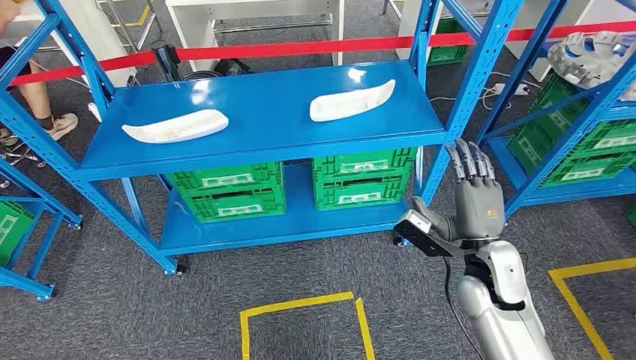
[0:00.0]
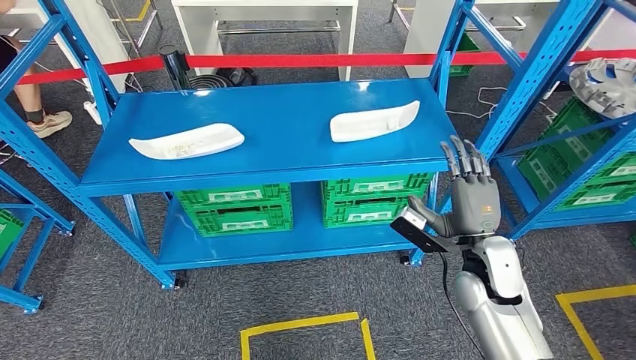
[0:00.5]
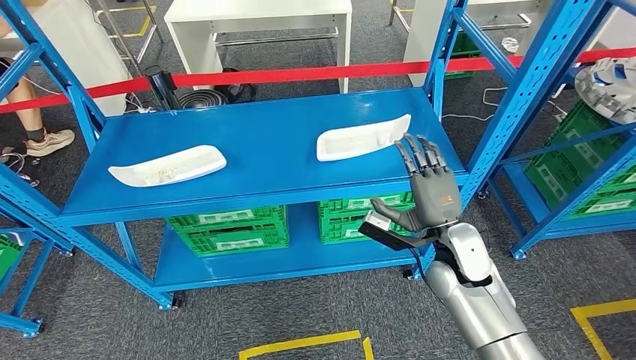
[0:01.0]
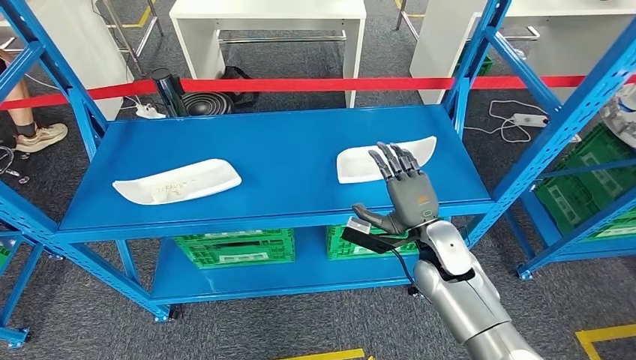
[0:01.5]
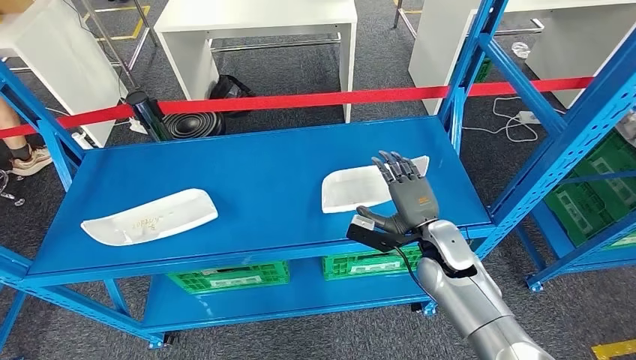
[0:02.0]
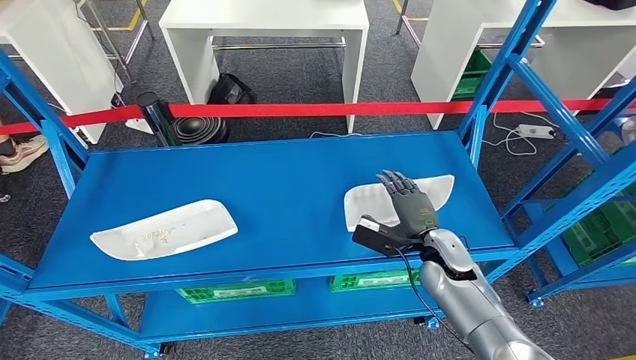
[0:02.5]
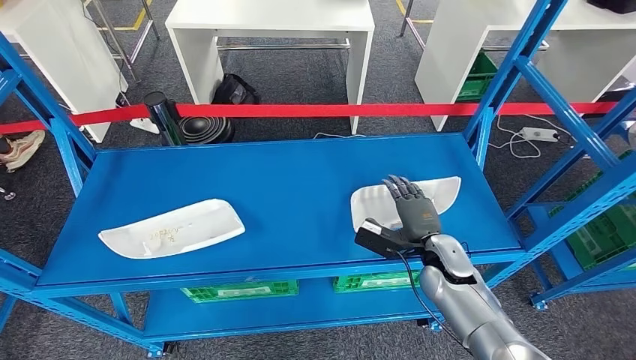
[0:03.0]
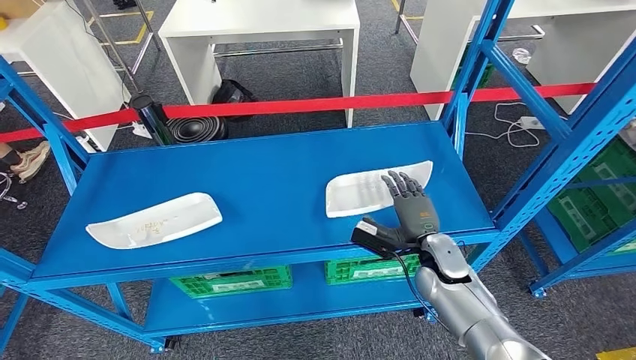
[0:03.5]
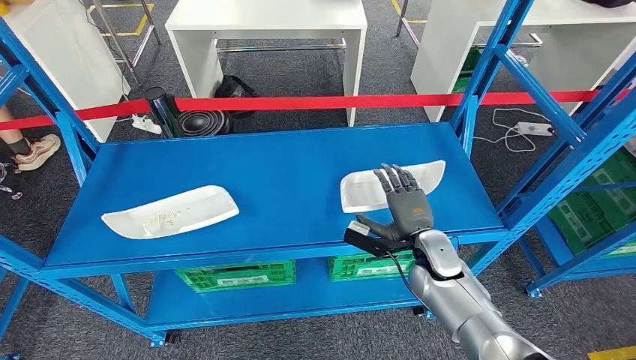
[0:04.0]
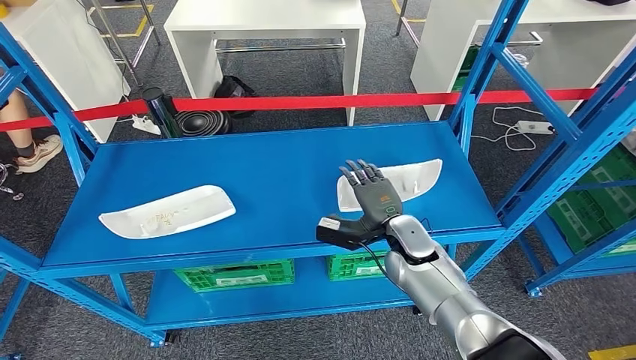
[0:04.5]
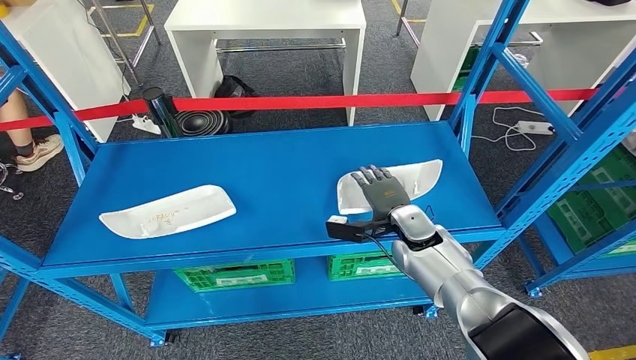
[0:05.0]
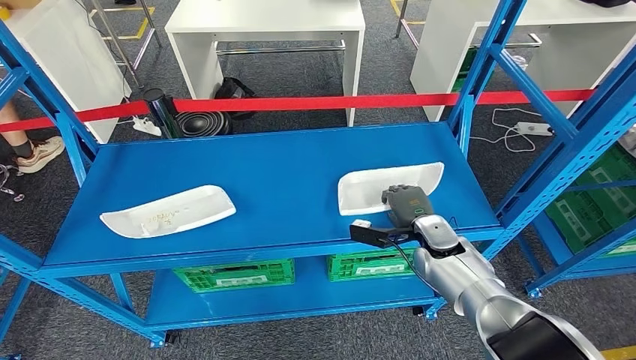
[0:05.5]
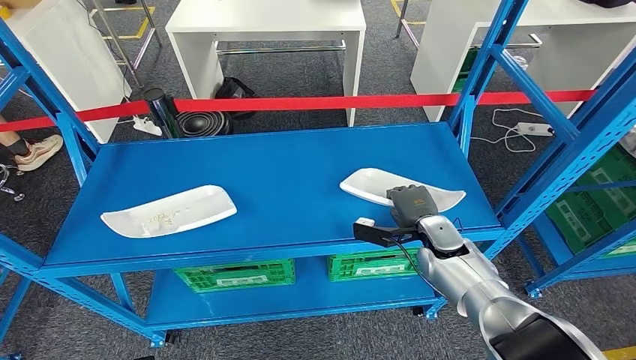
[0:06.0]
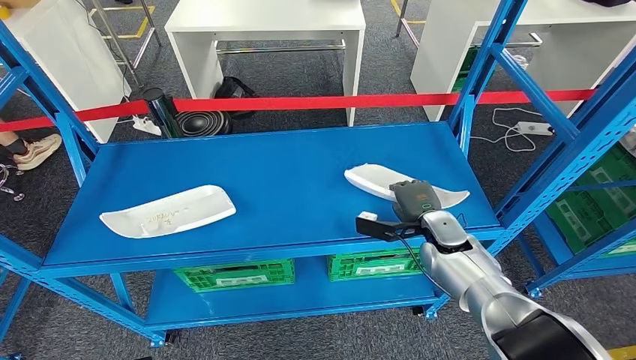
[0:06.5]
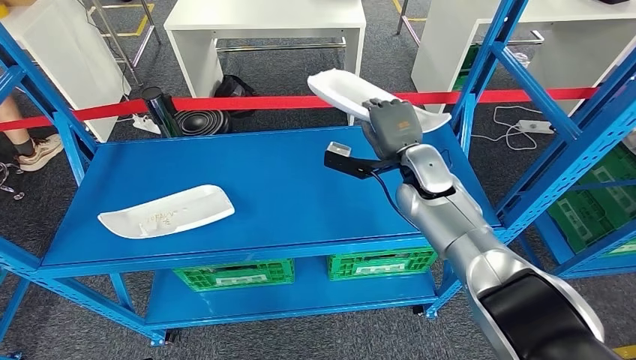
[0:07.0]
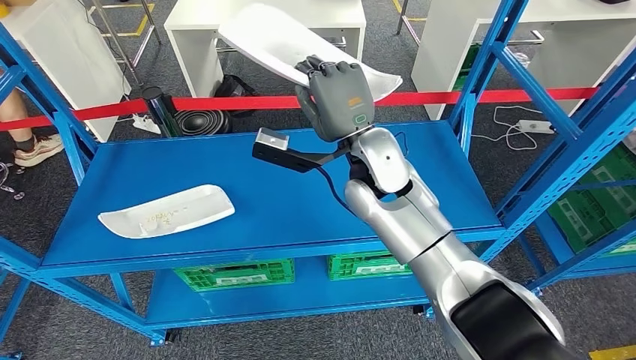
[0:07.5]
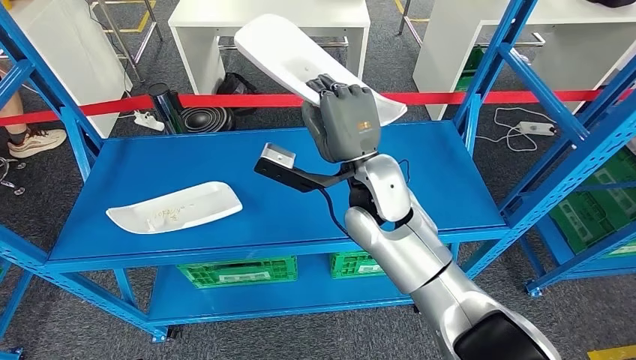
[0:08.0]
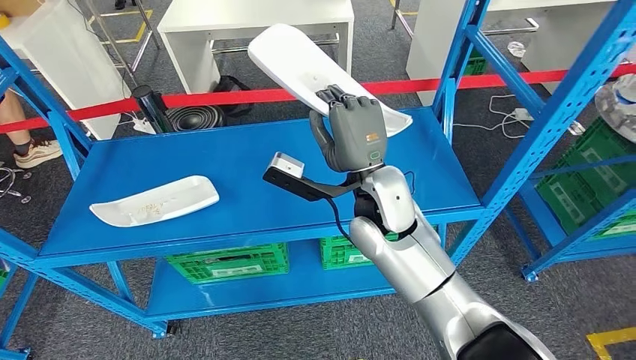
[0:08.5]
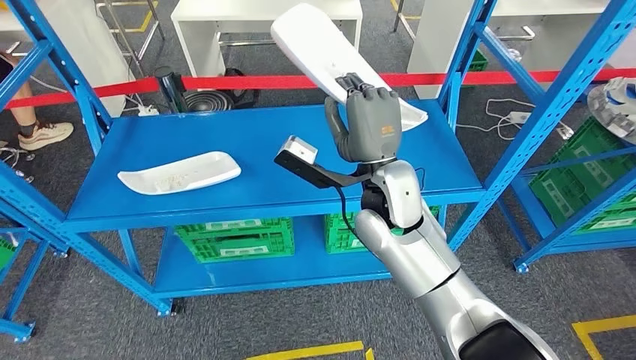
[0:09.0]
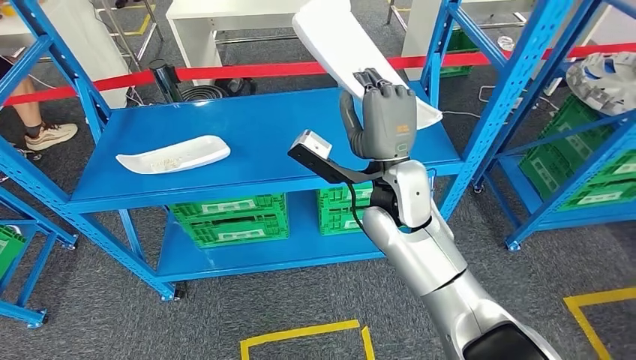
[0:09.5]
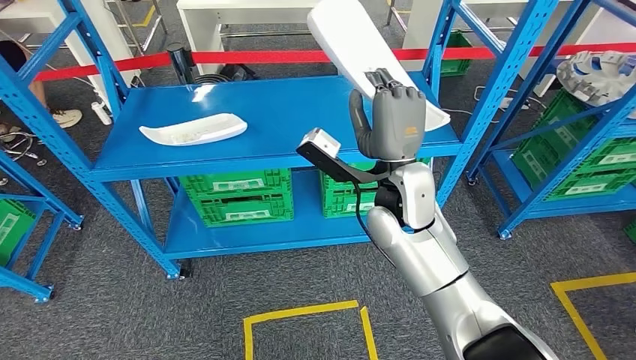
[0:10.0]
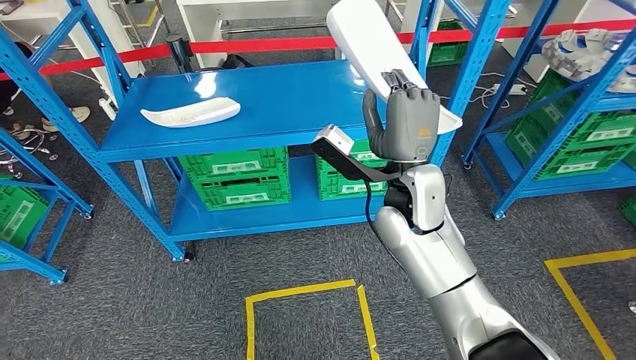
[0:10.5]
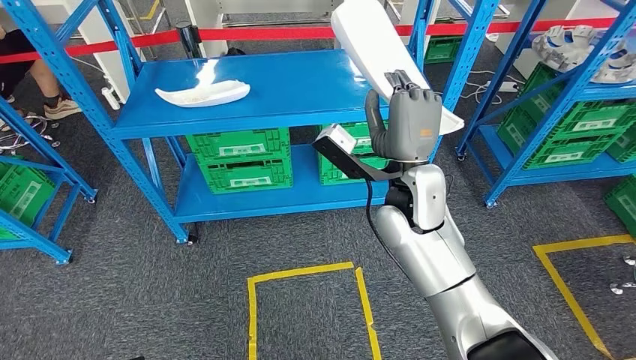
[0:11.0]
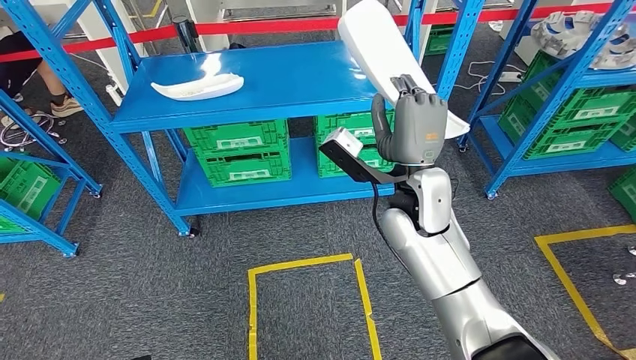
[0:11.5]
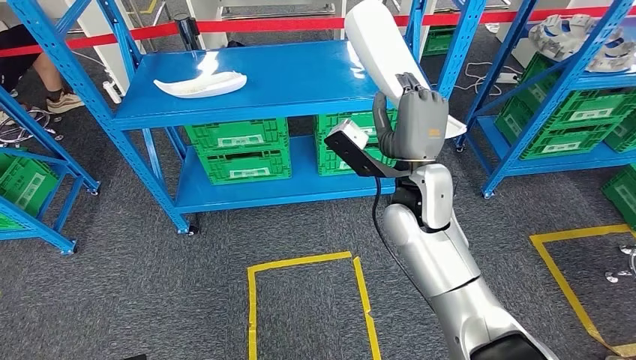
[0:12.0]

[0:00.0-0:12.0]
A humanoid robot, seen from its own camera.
Step, 0:00.0 to 0:07.0: Take small components from the rack.

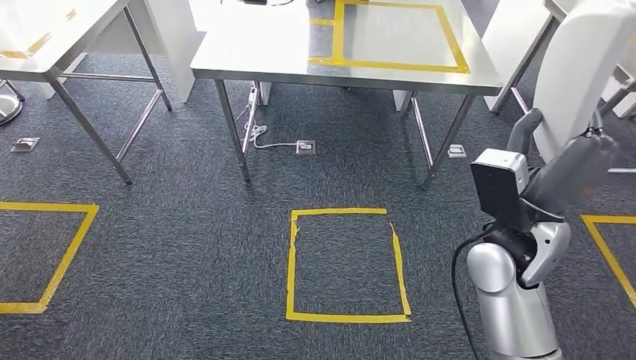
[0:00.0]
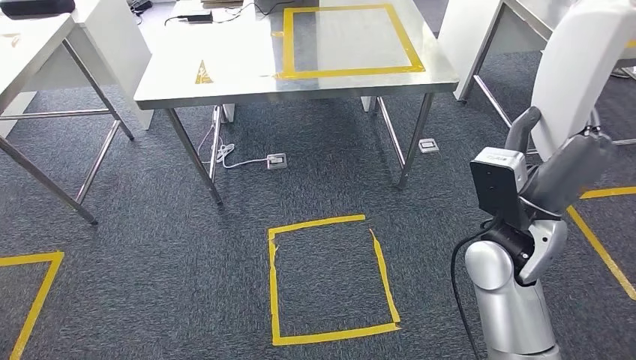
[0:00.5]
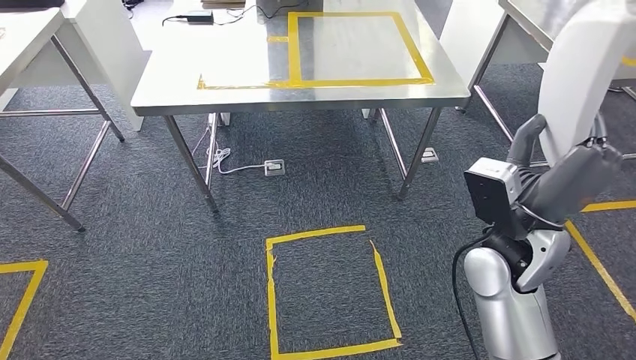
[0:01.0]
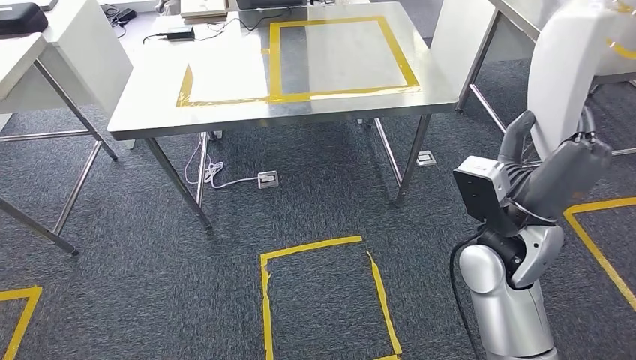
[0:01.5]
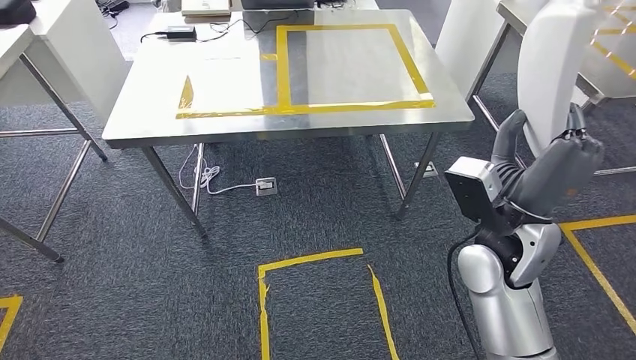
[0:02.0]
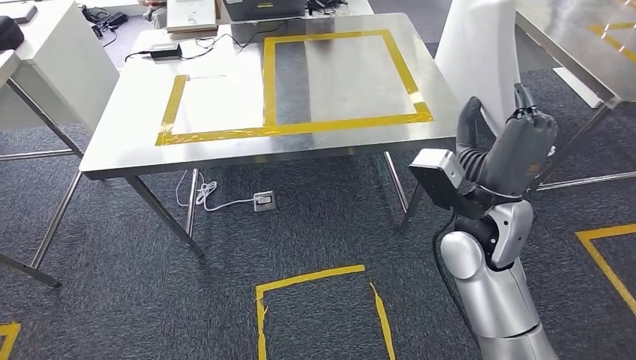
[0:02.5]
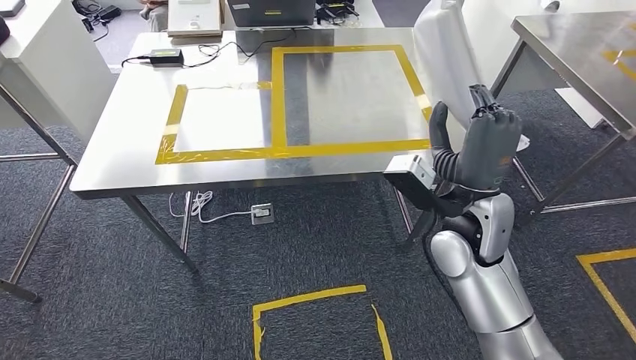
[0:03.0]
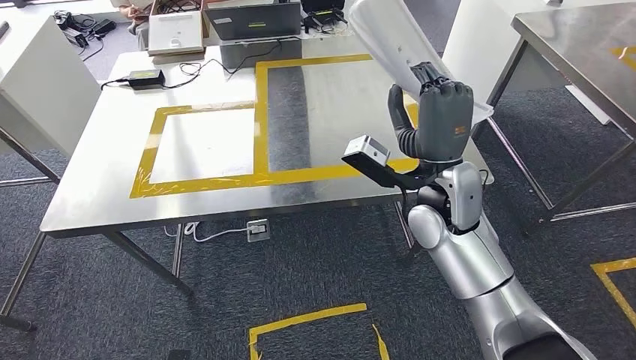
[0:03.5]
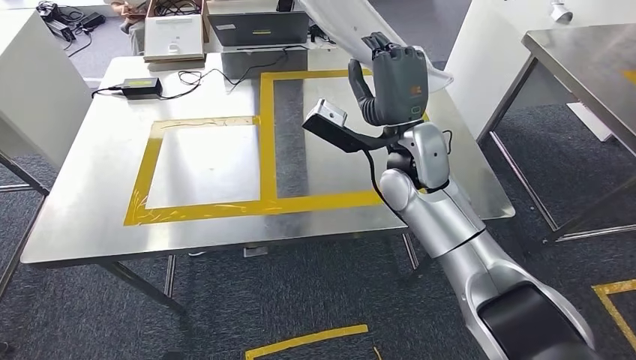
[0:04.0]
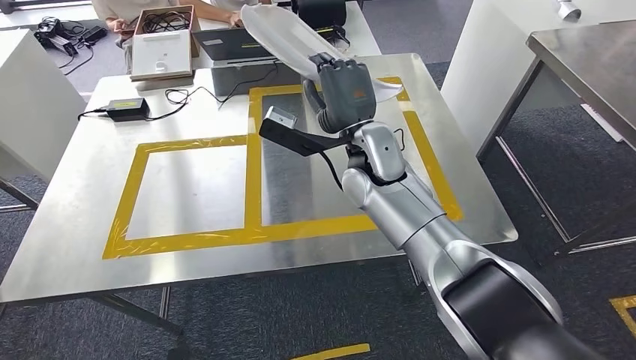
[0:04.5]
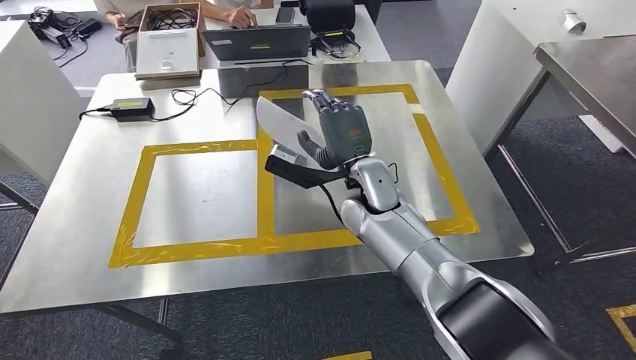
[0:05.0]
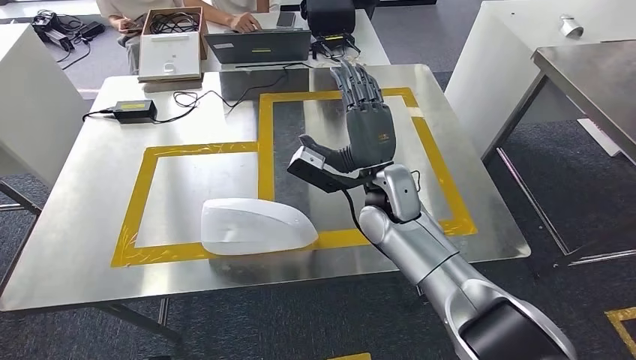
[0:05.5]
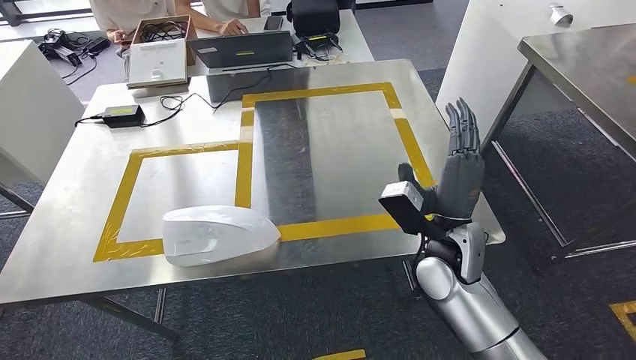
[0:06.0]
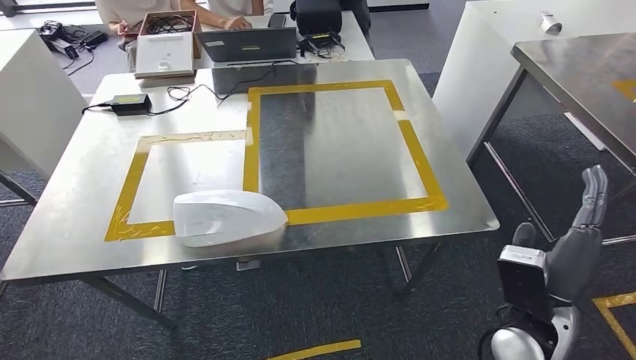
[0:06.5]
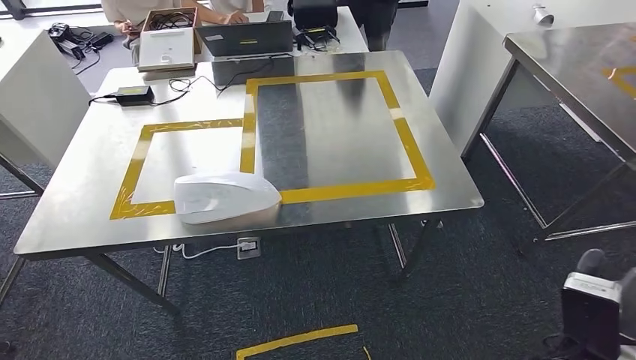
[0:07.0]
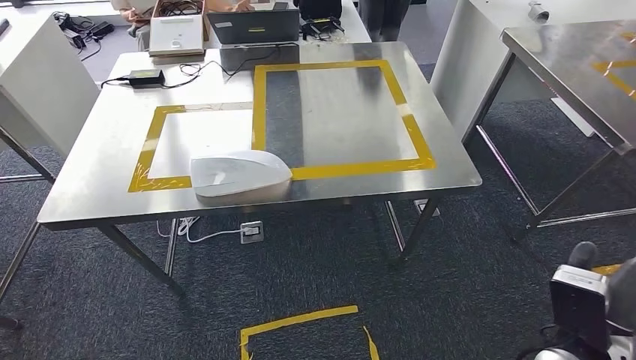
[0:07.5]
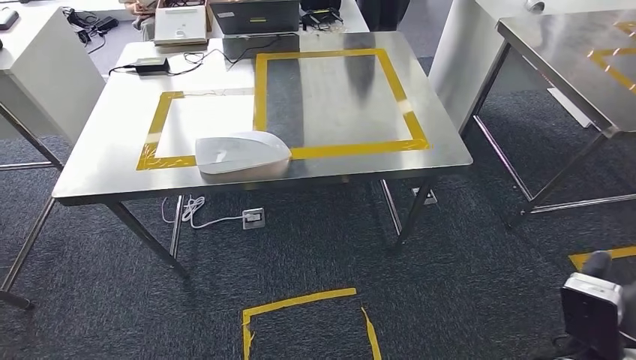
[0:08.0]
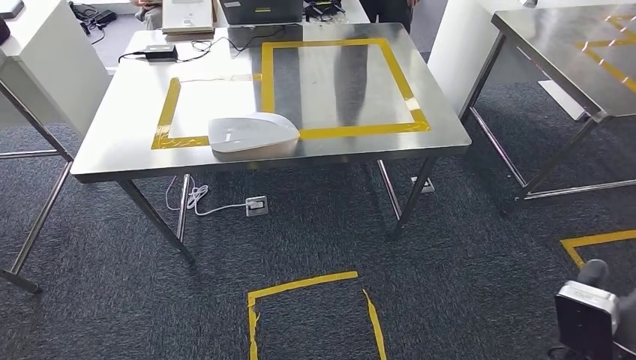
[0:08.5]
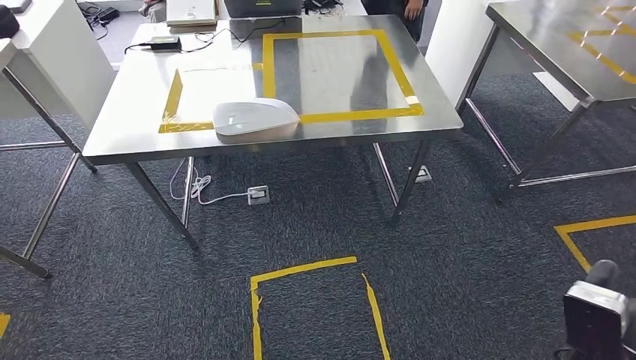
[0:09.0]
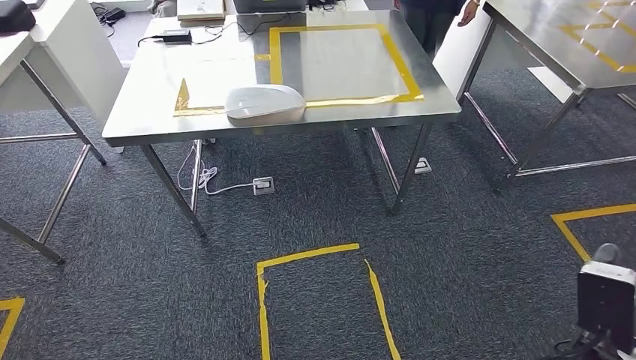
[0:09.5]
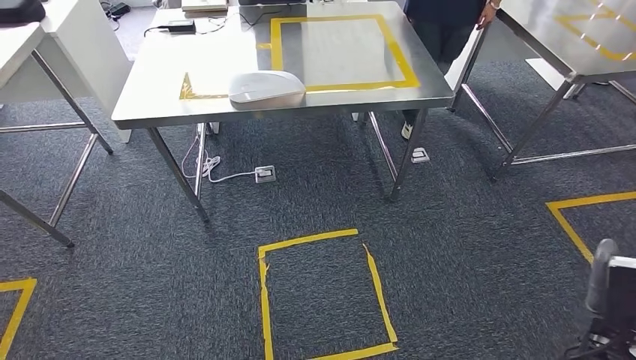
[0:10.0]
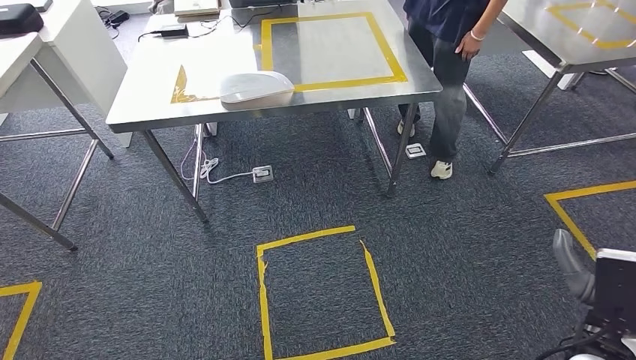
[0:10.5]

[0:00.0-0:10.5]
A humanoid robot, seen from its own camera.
Step, 0:00.0 to 0:03.5: Move the small parts to the workbench.
Step, 0:04.0 to 0:06.0: Insert the small parts into the corresponding holes on the workbench.
Step, 0:06.5 to 0:10.5: Move to the initial position of the workbench.
